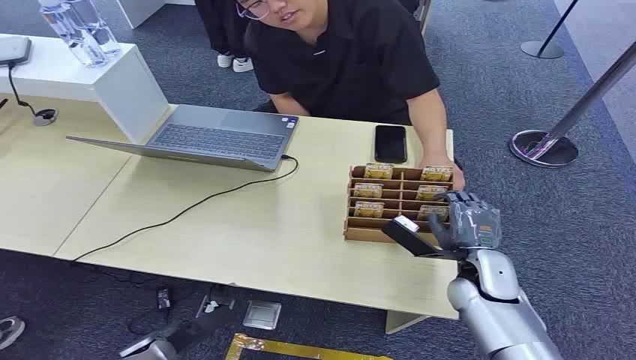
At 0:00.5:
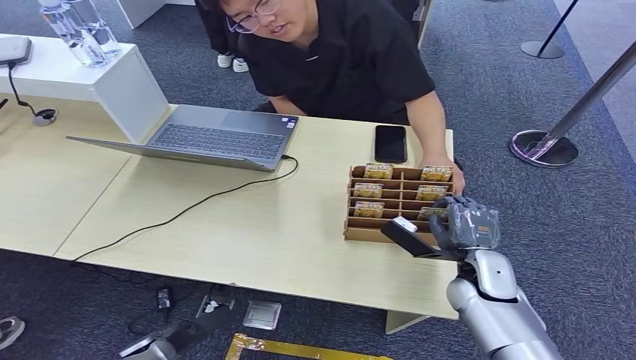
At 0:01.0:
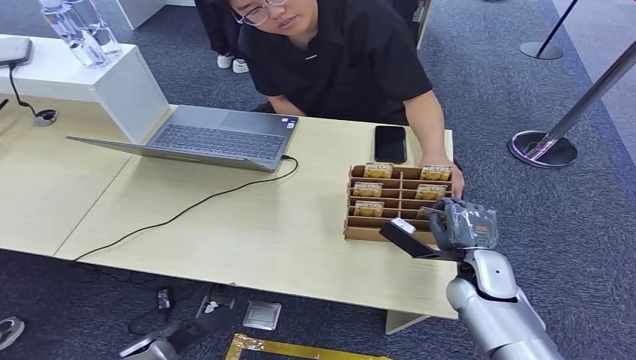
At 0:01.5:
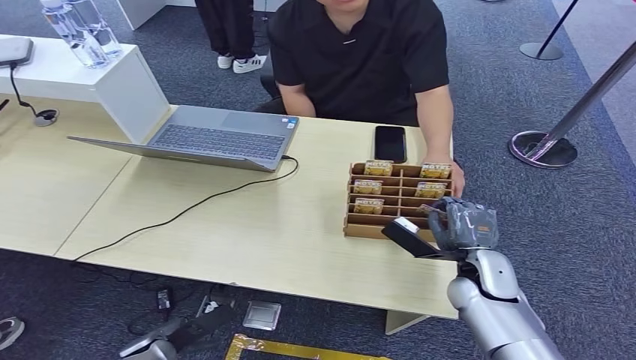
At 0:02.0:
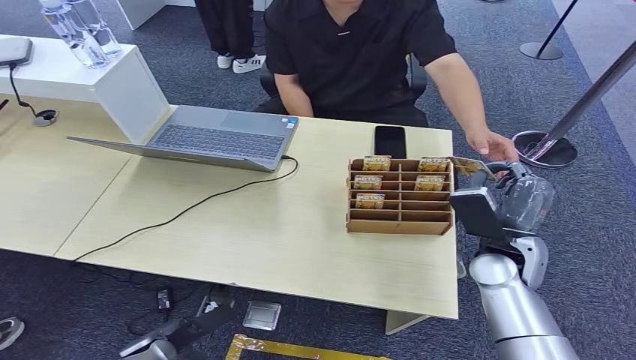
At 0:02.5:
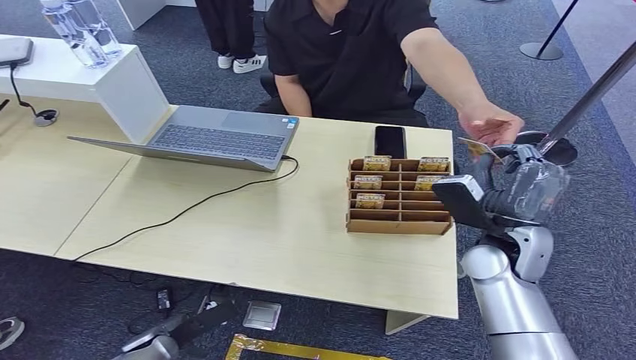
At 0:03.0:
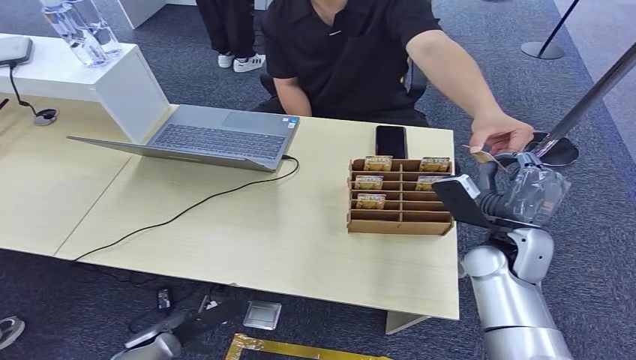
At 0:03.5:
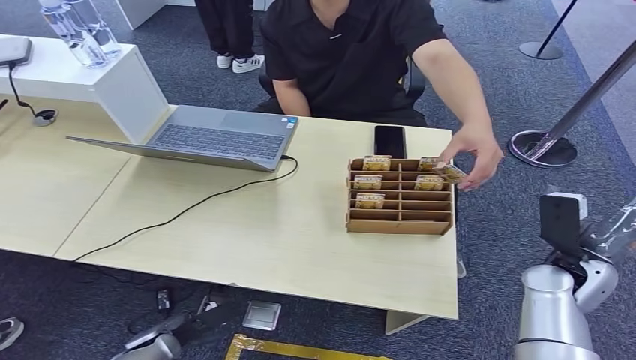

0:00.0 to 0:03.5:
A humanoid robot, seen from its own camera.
Step, 0:00.0 to 0:01.5: Pick up the key card from the card box.
Step, 0:02.5 to 0:03.5: Hand the key card to the target.
